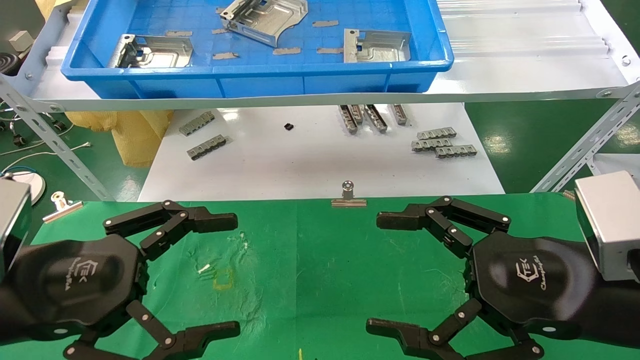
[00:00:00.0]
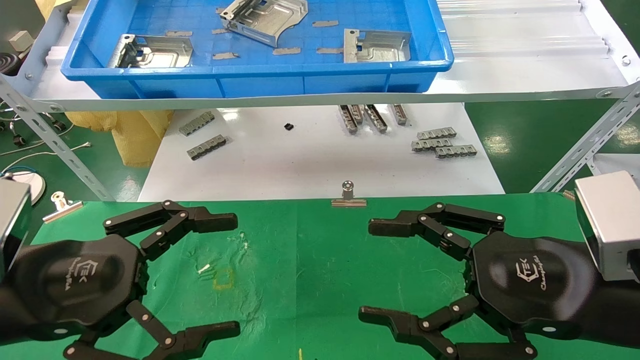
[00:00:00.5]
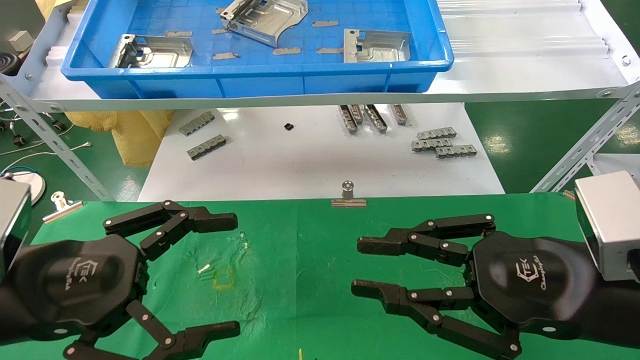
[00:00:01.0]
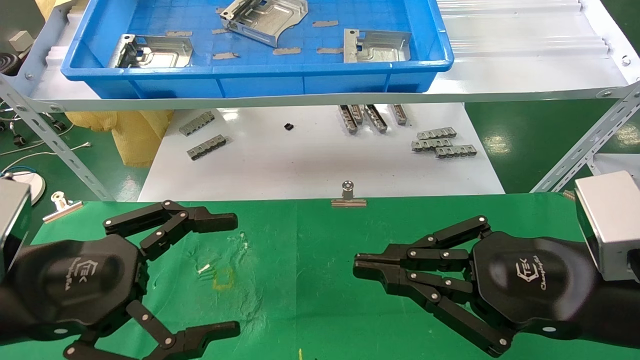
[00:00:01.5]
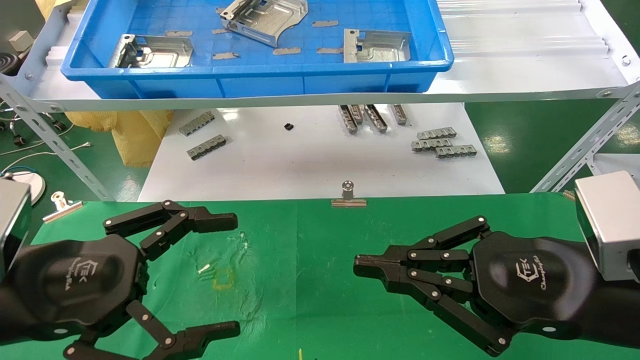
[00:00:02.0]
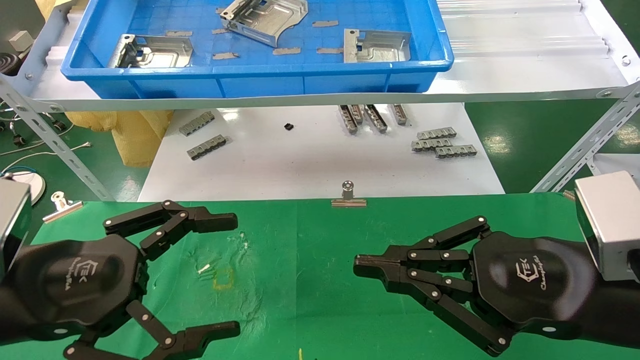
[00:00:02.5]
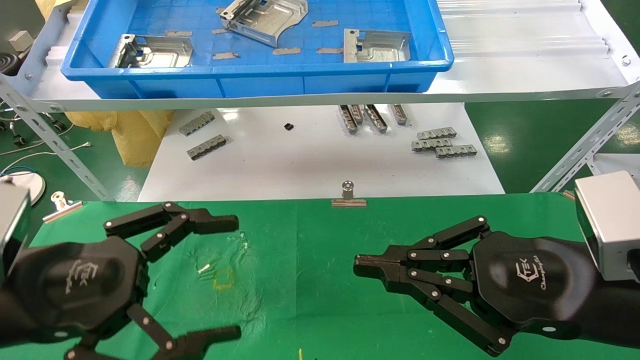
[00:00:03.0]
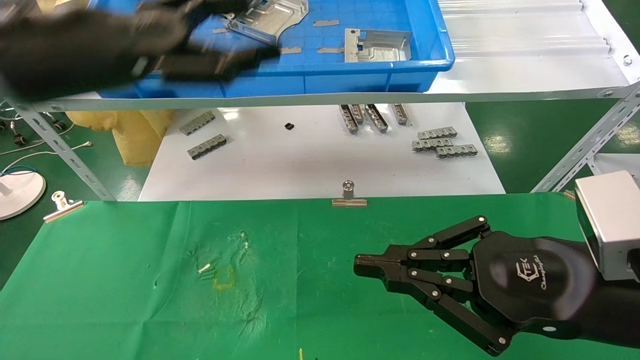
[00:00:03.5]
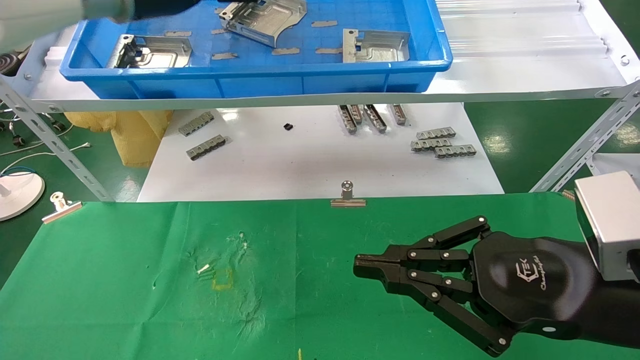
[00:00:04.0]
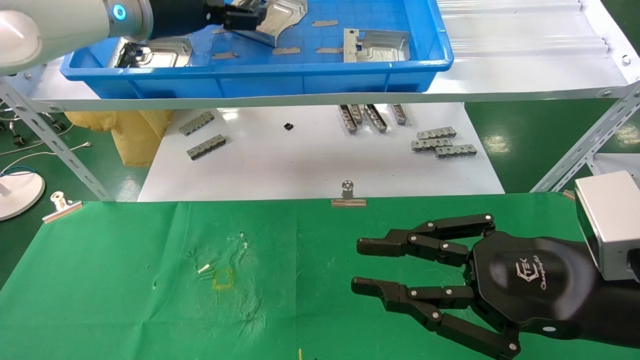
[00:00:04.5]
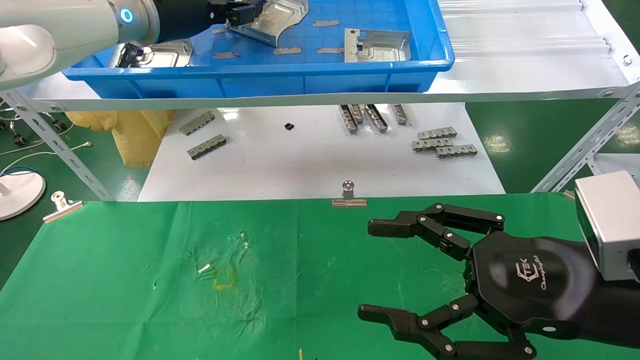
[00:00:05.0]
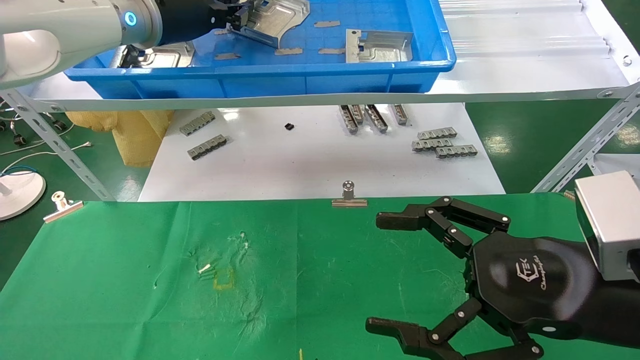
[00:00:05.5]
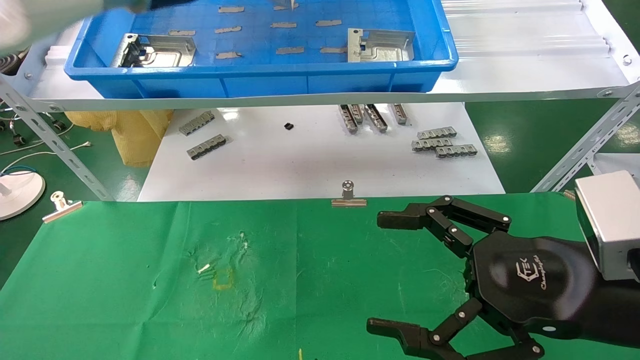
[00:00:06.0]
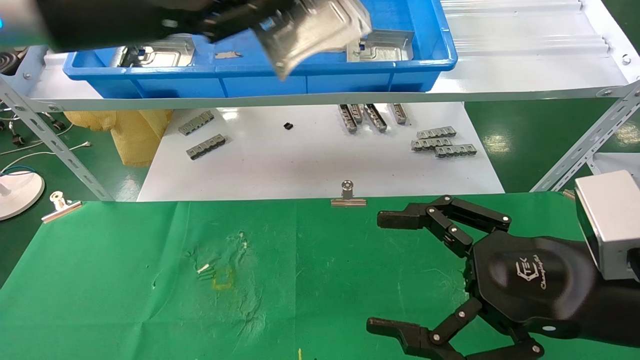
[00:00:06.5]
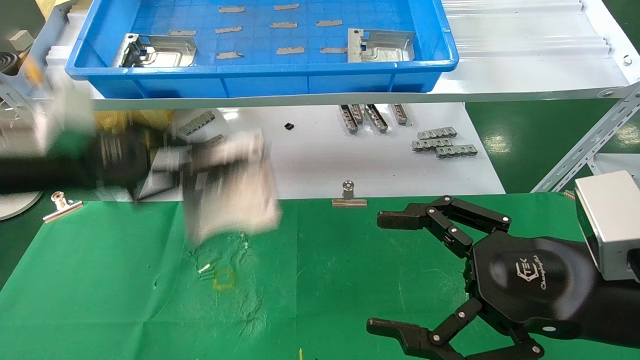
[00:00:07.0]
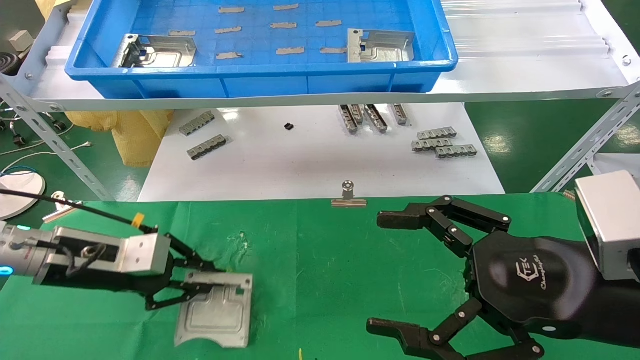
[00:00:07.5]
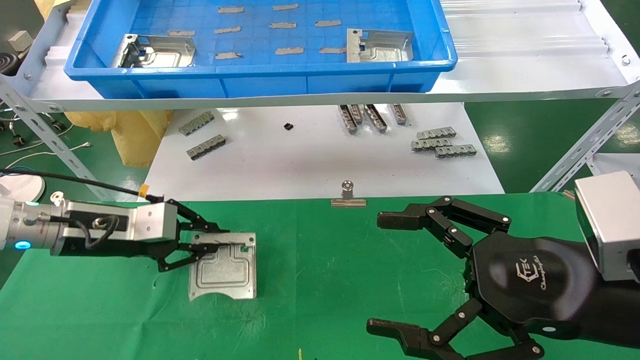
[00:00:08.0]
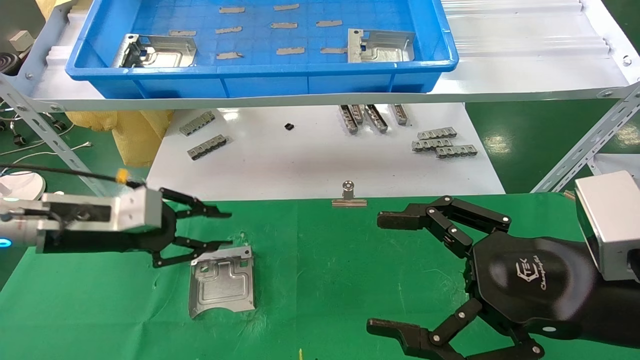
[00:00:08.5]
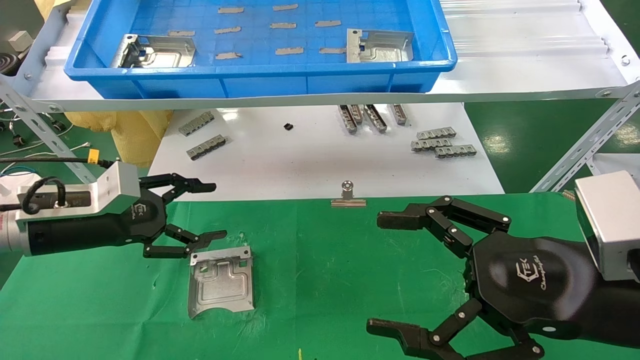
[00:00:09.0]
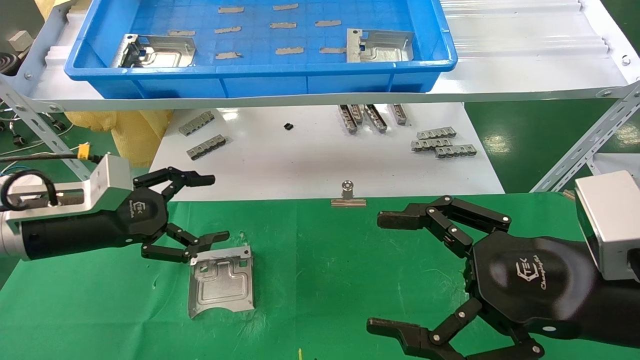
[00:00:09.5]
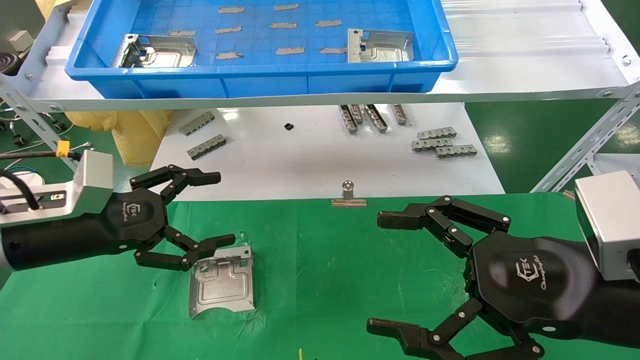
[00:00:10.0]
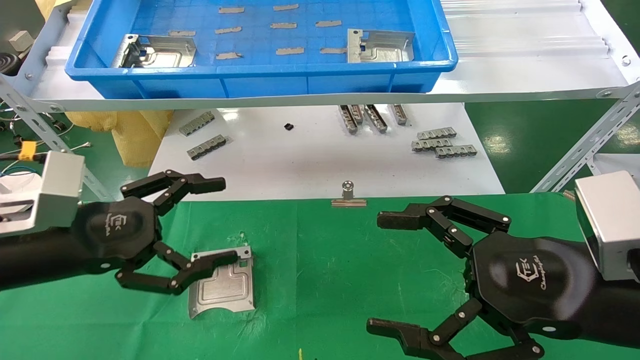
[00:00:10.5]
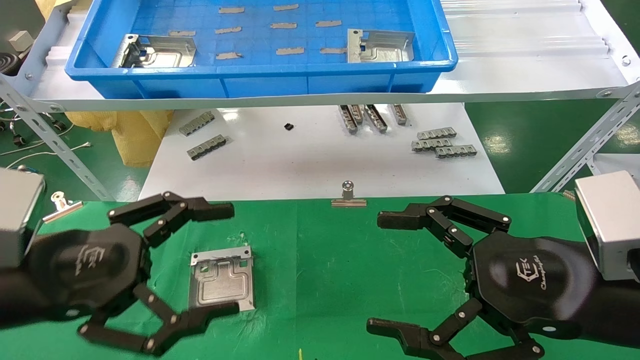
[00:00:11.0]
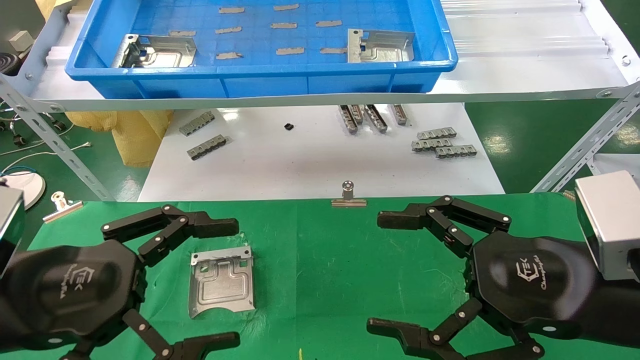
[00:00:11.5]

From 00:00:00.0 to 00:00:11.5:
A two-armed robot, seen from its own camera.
Task of the whole recording: use the mechanical arm to pick up the parts and place them on the table.
Step, from 00:00:03.5 to 00:00:05.0: Pick up the hard drive bracket from the feeding area.
Step, from 00:00:05.5 to 00:00:08.5: Place the hard drive bracket into the box.
From 00:00:00.0 to 00:00:02.0: The right gripper closes.
From 00:00:02.0 to 00:00:04.0: The left gripper shifts roughly 35 cm upward and forward.
From 00:00:04.0 to 00:00:06.0: The right gripper opens, while the left gripper closes up.
From 00:00:06.0 to 00:00:07.5: The left gripper goes roughly 30 cm downward and to the left.
From 00:00:07.5 to 00:00:09.5: The left gripper opens its fingers.
From 00:00:09.5 to 00:00:11.5: The left gripper moves backward, roughly 15 cm.

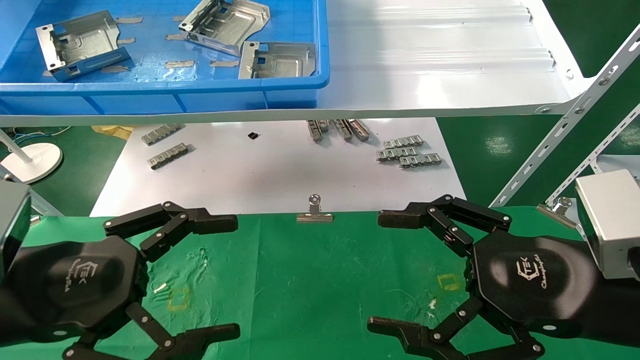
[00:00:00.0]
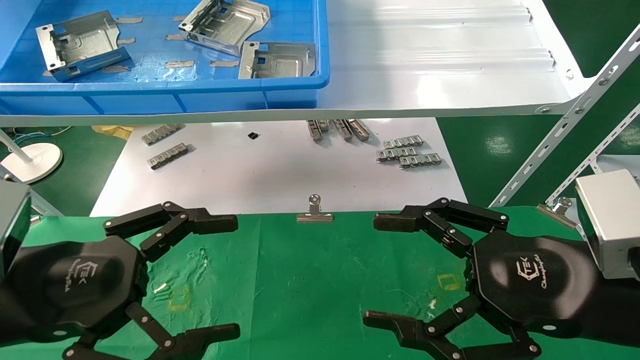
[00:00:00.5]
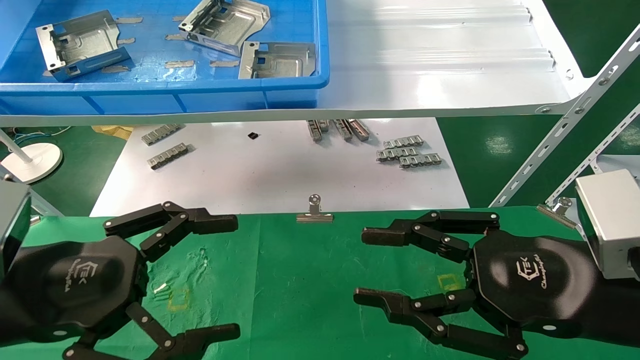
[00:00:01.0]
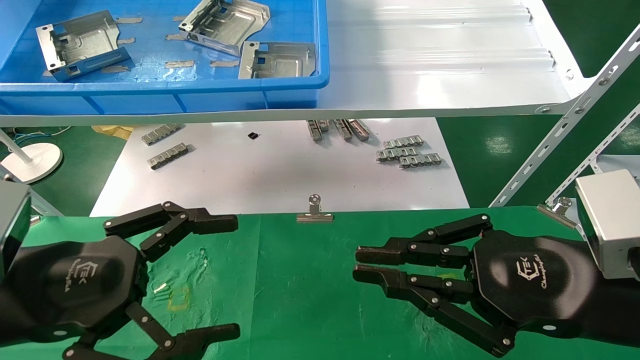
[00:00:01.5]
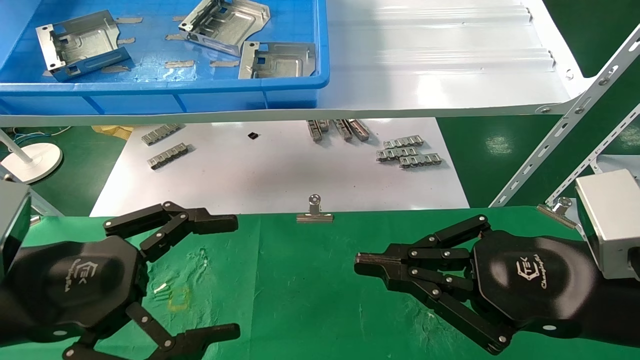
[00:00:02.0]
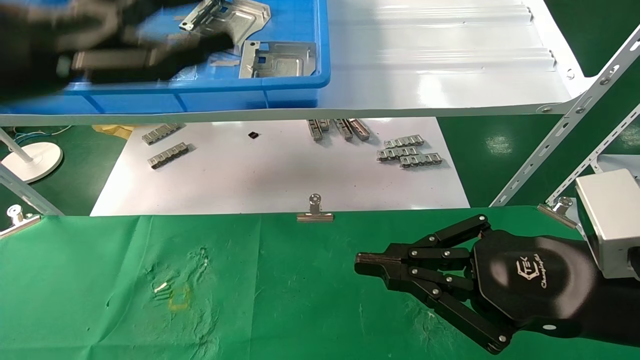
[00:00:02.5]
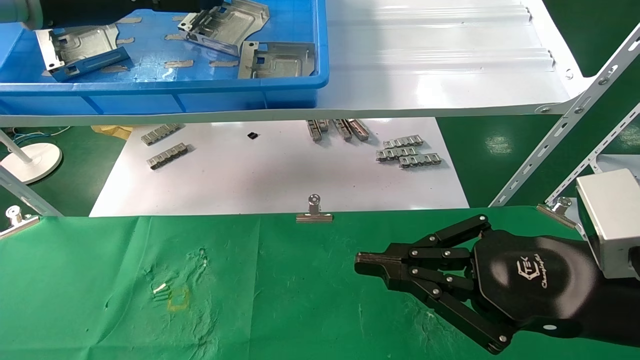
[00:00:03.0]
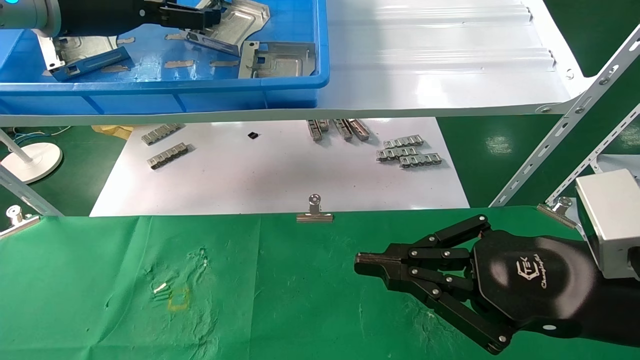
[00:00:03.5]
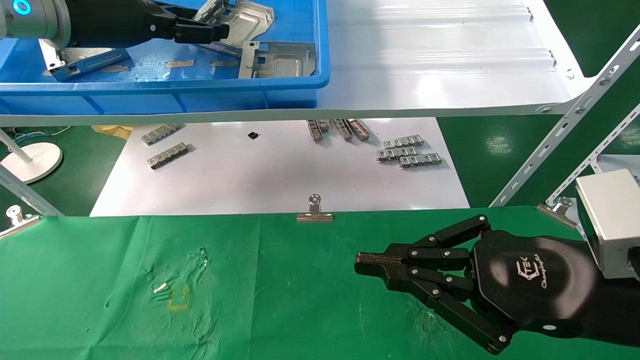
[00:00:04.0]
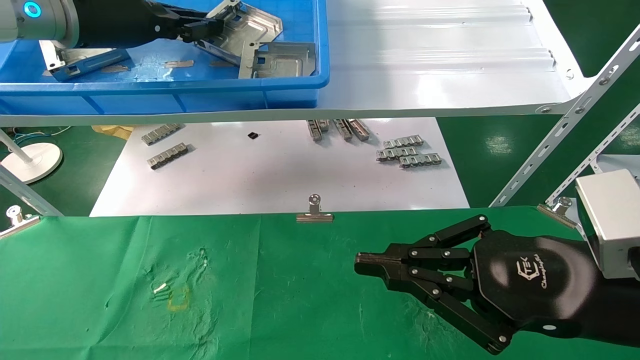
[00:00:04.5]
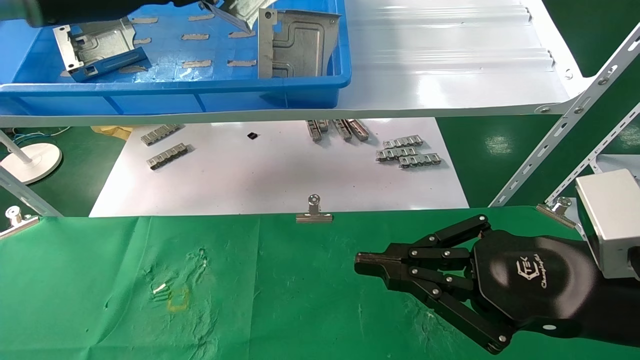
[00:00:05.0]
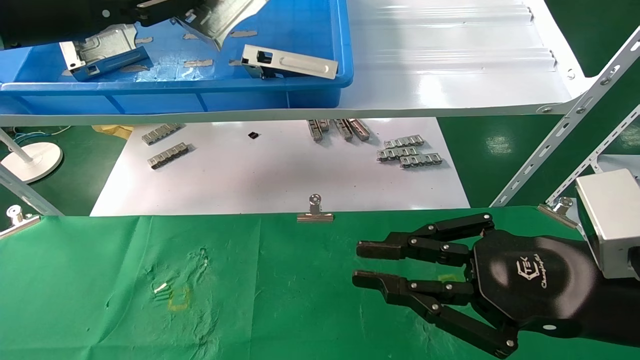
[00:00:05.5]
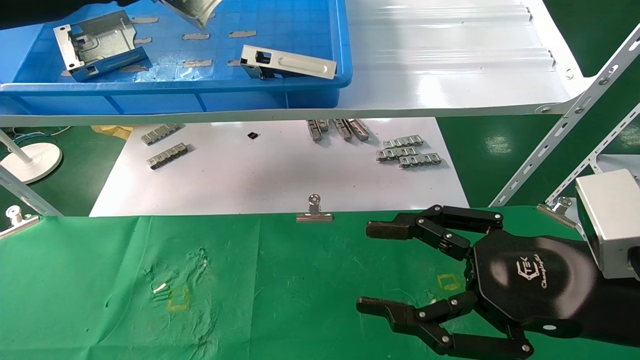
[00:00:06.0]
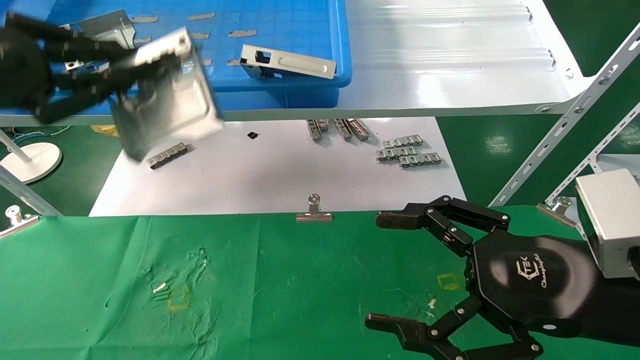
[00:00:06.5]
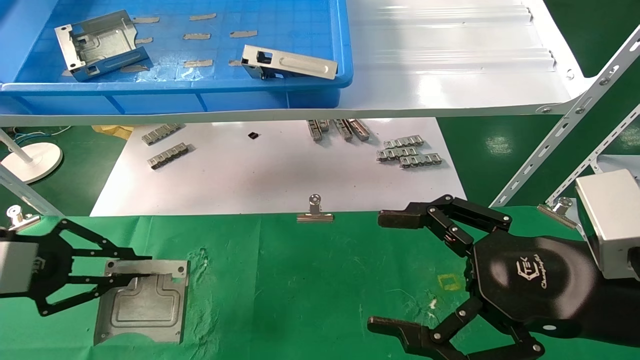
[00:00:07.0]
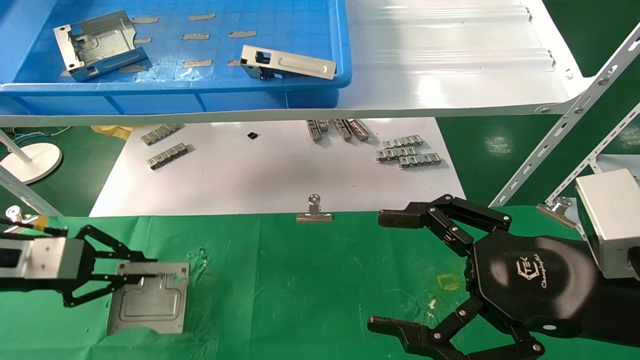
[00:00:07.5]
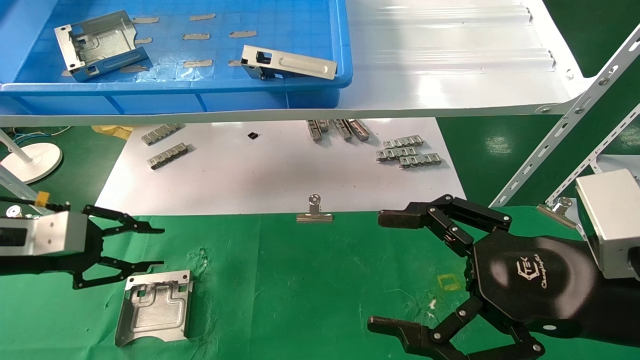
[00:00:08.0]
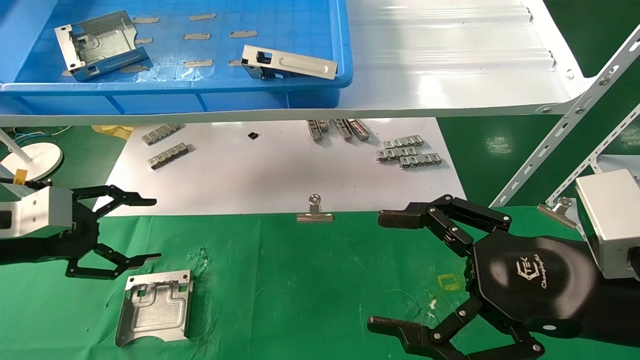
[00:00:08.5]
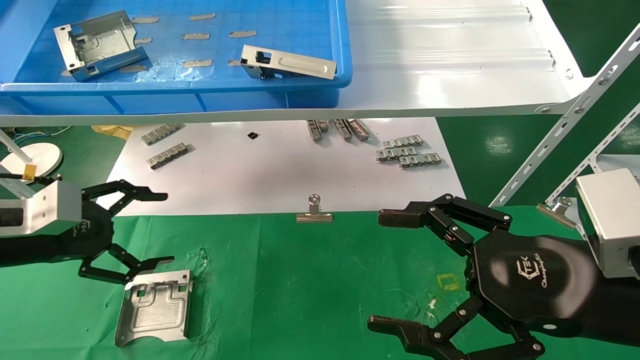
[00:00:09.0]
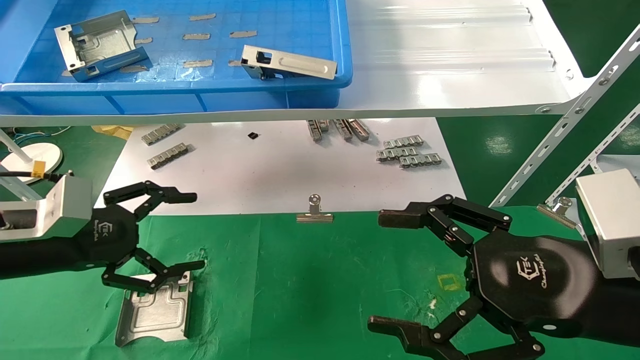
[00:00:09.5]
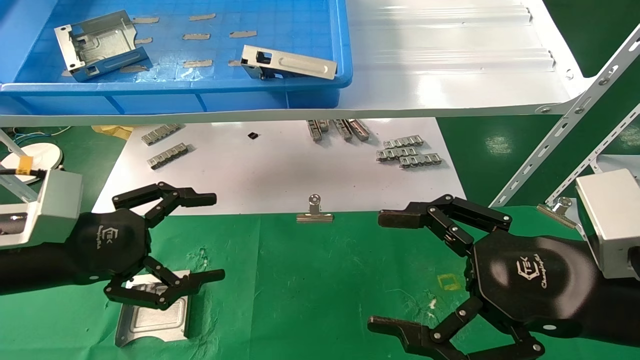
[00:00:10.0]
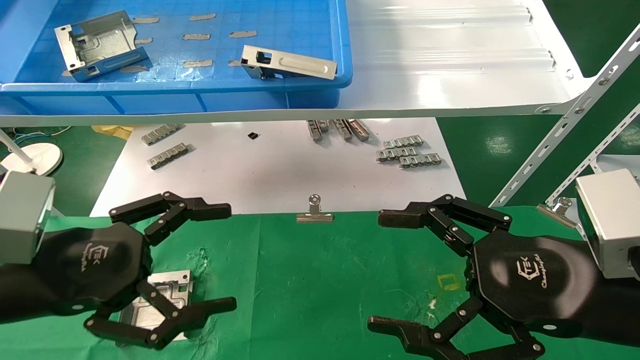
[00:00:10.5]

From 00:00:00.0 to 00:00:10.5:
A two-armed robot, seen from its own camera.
Task of the whole recording: use the mechanical arm to pick up the parts and place them on the table.
Step, from 00:00:01.5 to 00:00:04.5: Pick up the hard drive bracket from the feeding area.
Step, from 00:00:05.0 to 00:00:08.0: Place the hard drive bracket into the box.
From 00:00:00.0 to 00:00:02.0: The right gripper closes its fingers.
From 00:00:02.0 to 00:00:04.0: The left gripper is displaced upward and forward by about 30 cm.
From 00:00:04.0 to 00:00:06.5: The left gripper moves backward, to the left and downward, some 20 cm, and closes; the right gripper opens its fingers.
From 00:00:06.5 to 00:00:08.5: The left gripper travels downward by some 15 cm, and opens up.
From 00:00:08.5 to 00:00:10.5: The left gripper moves to the right and backward, about 15 cm.
